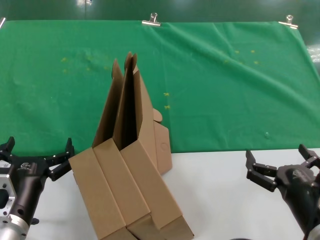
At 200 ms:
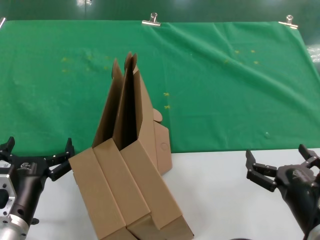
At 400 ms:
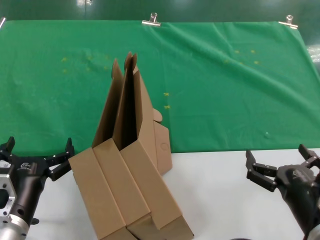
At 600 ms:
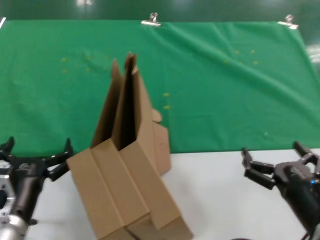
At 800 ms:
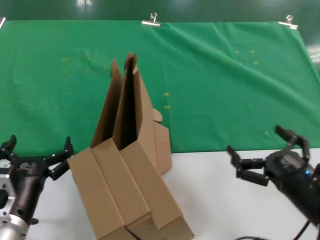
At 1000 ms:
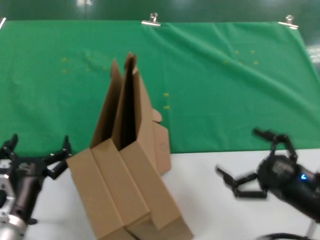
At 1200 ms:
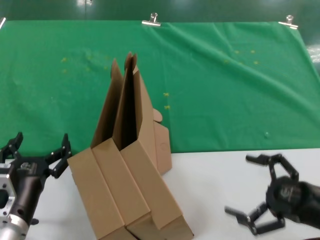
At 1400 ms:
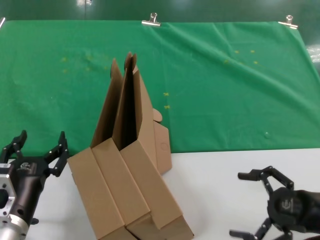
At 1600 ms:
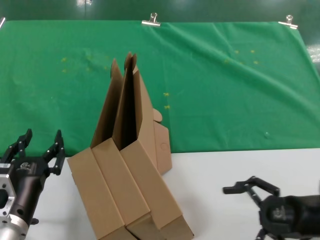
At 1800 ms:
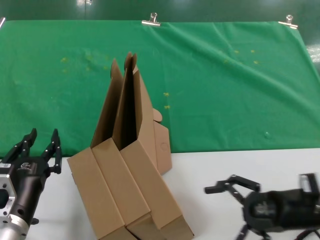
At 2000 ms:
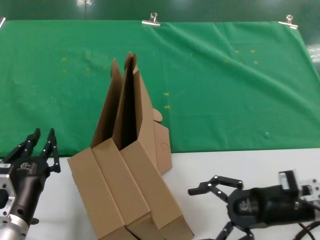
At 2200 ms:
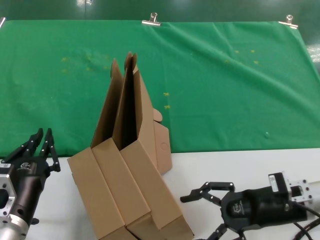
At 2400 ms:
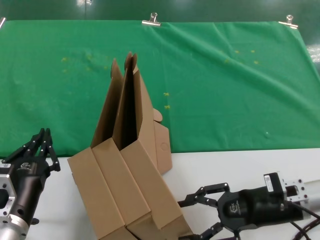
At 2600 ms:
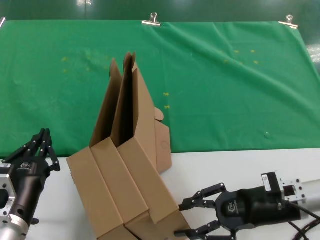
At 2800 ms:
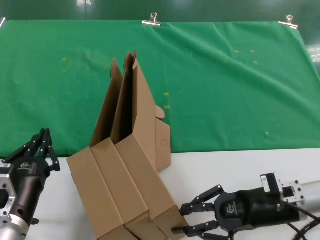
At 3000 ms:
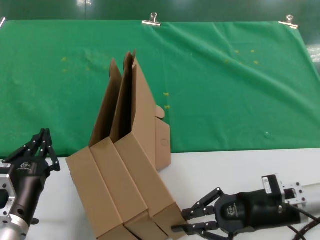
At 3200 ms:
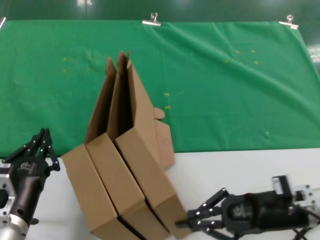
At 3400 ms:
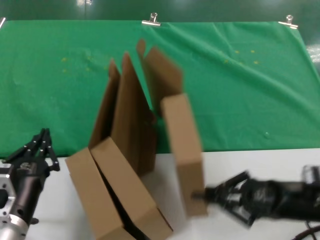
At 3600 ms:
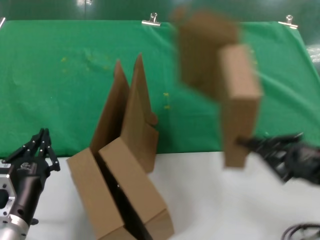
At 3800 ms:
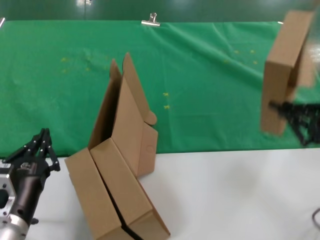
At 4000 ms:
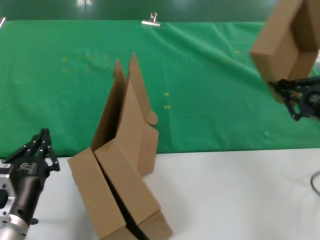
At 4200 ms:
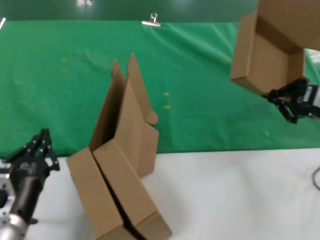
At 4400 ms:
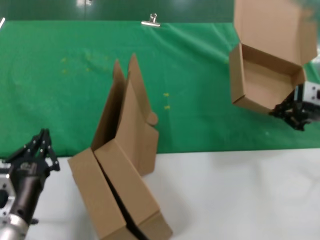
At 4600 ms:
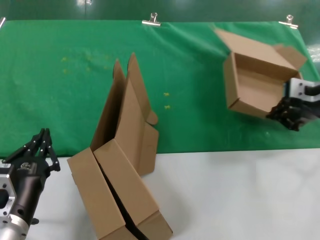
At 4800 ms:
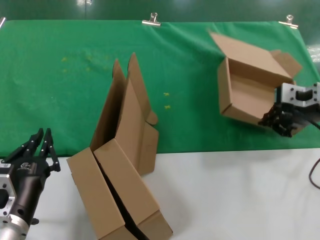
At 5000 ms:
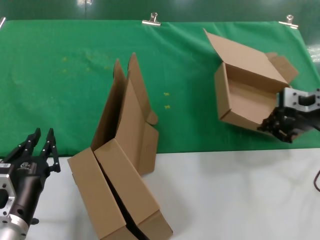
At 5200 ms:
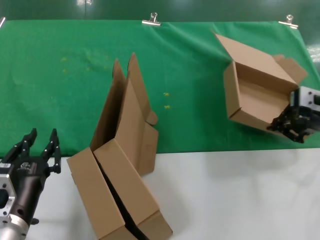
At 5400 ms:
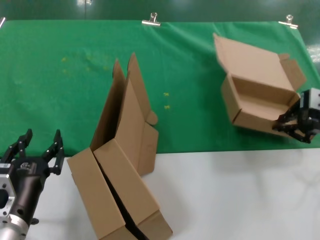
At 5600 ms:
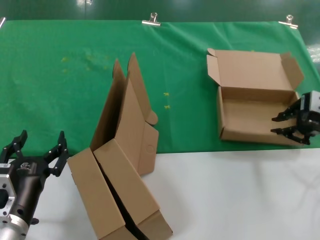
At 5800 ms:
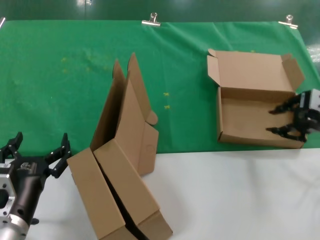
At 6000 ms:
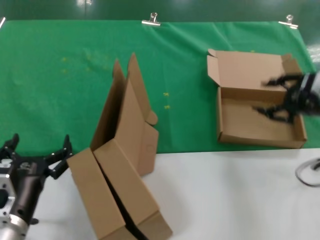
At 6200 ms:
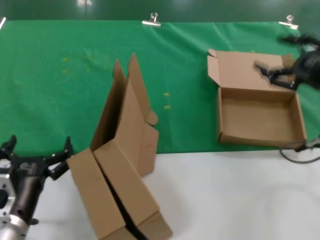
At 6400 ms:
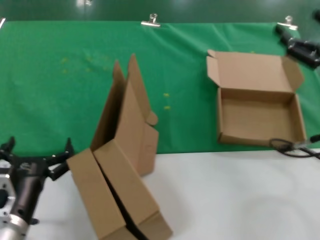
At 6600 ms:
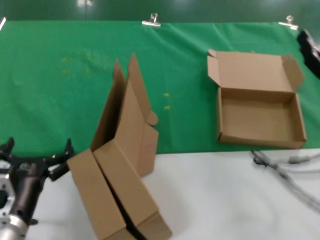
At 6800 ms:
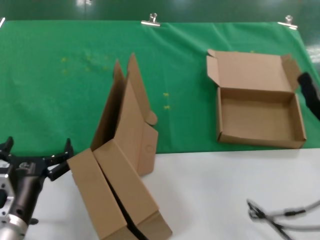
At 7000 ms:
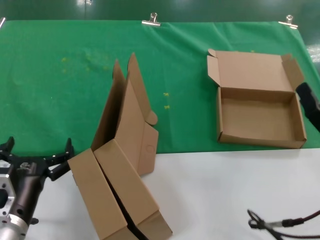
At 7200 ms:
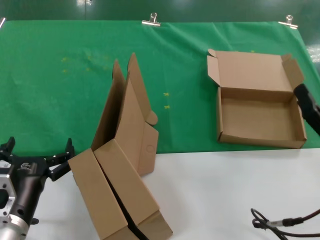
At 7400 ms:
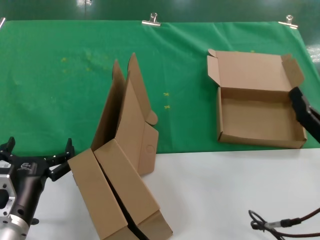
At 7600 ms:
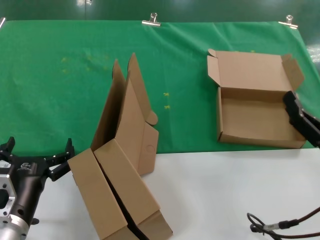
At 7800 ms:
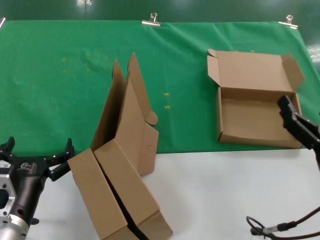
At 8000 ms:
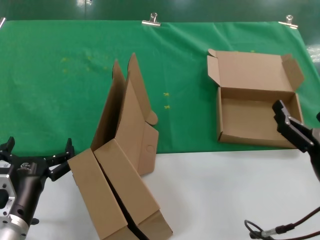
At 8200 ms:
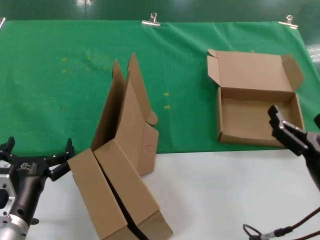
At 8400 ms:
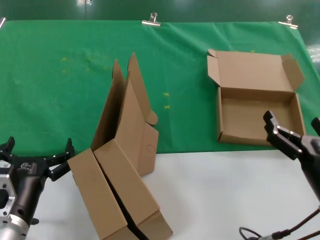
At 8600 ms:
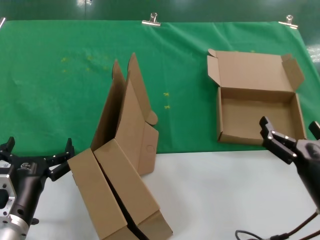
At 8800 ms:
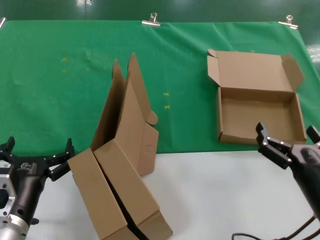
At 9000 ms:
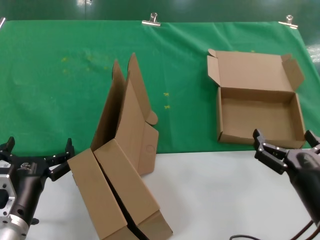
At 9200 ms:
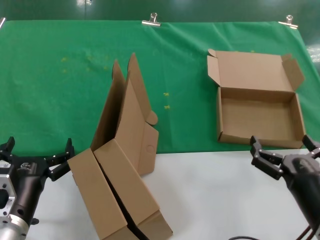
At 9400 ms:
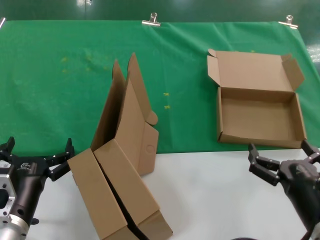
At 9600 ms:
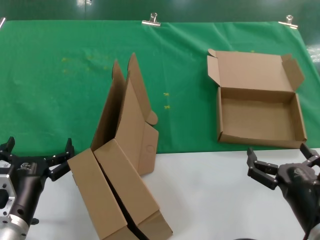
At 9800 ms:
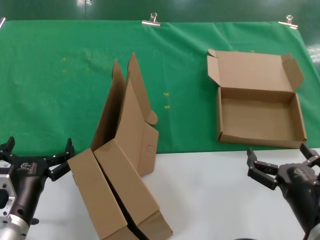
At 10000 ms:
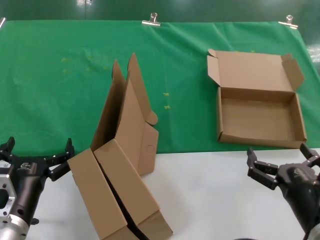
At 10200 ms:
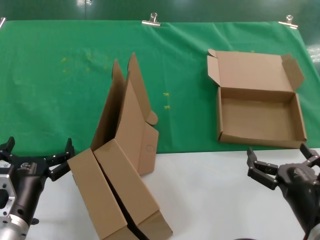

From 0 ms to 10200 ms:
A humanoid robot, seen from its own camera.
Task of the whole recording: pick up the paper box and put it at the back.
Step, from 0 ms to 3000 ms: Grasp the paper box.
Step, from 3200 ms to 5400 ms: Place the paper box on the table.
From 0 ms to 1400 ms: The right hand shifts roughly 15 cm to the right and forward.
From 1400 ms to 3000 ms: The right hand moves forward and to the left, some 10 cm.
From 3000 ms to 4400 ms: The right hand shifts about 20 cm upward, to the right and forward.
From 4400 ms to 5800 ms: The hands stay close to where they were, moving slightly.
From 5800 ms to 7200 ms: The right hand heads backward and downward, covering about 25 cm.
From 7200 ms to 8800 ms: The right hand ends up about 5 cm from where it was.
From 8800 ms to 10200 ms: The hands make only small movements.
